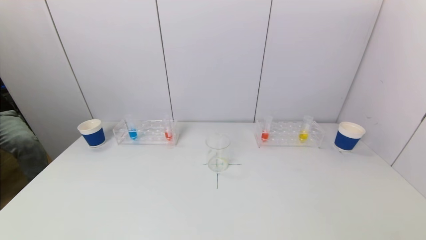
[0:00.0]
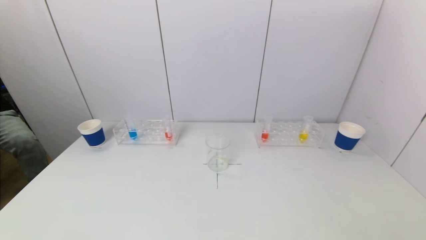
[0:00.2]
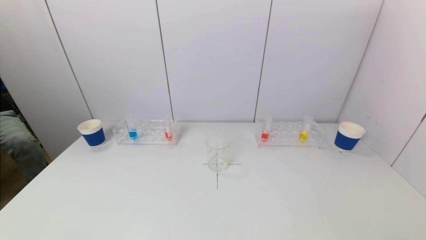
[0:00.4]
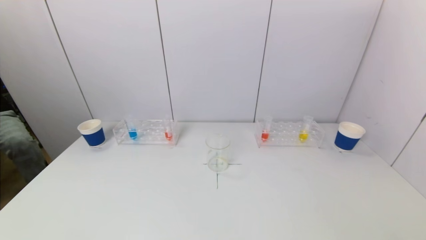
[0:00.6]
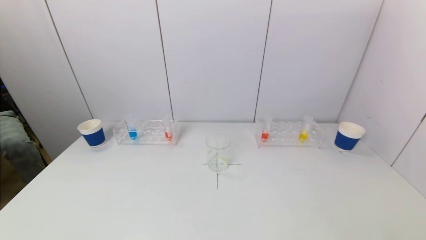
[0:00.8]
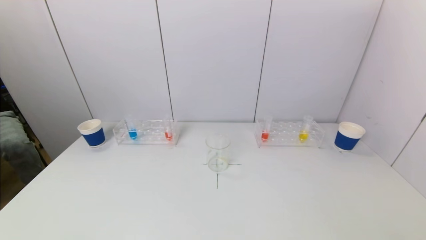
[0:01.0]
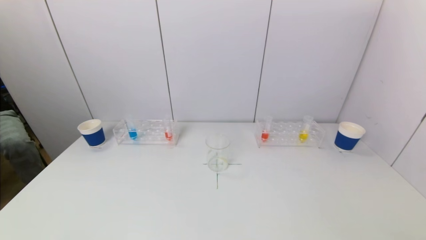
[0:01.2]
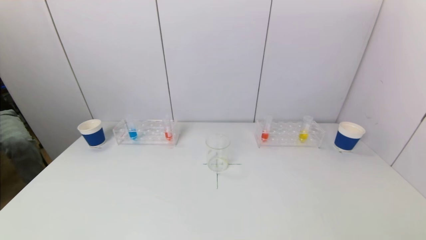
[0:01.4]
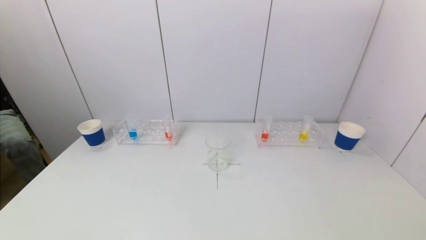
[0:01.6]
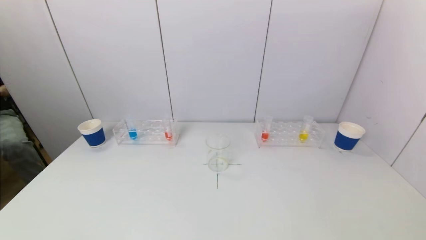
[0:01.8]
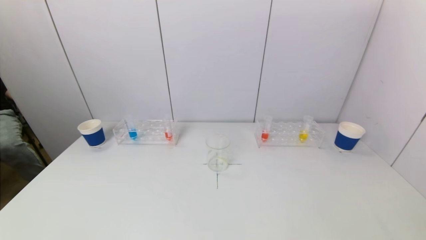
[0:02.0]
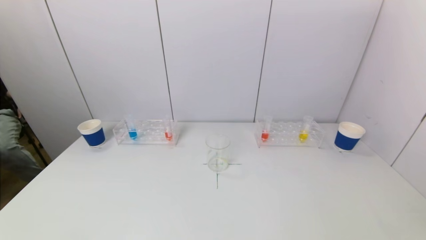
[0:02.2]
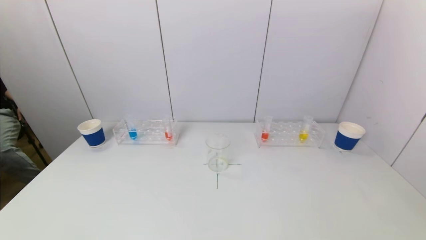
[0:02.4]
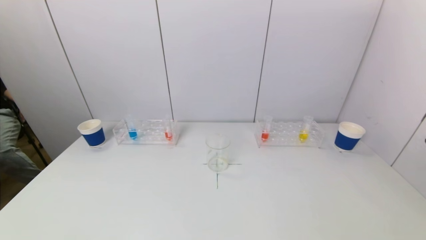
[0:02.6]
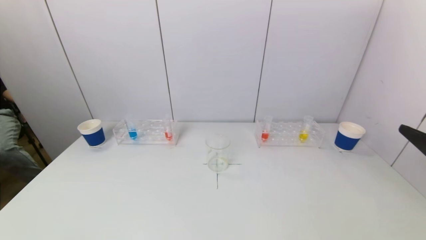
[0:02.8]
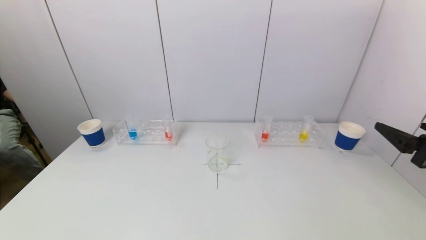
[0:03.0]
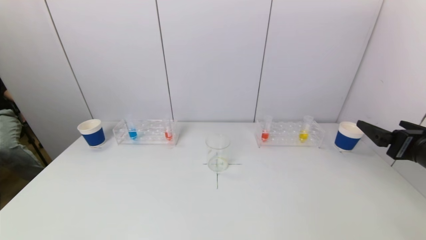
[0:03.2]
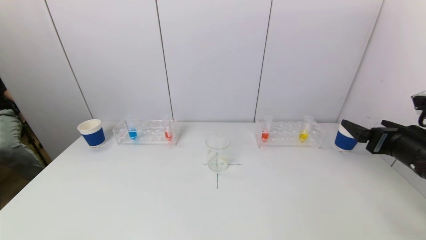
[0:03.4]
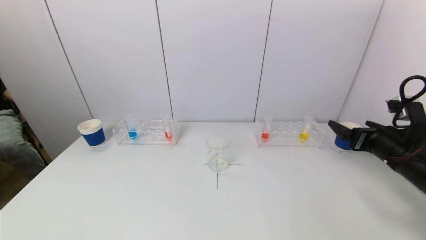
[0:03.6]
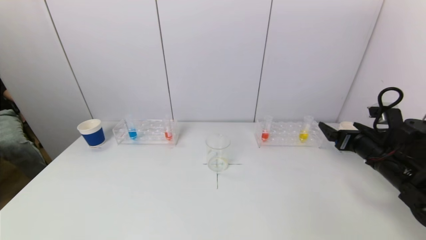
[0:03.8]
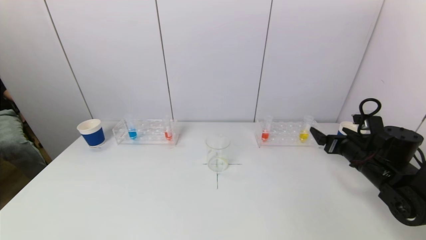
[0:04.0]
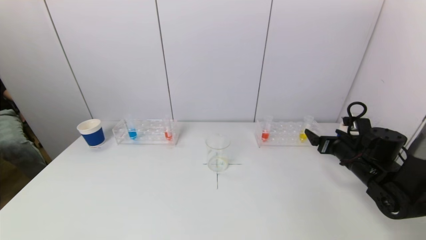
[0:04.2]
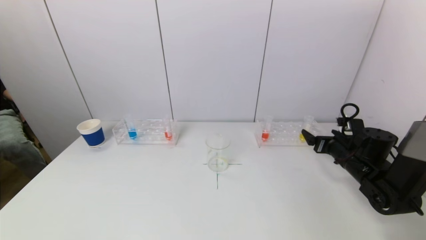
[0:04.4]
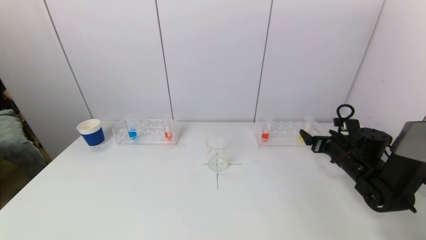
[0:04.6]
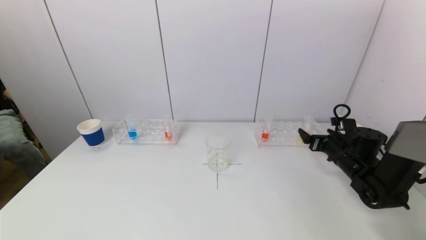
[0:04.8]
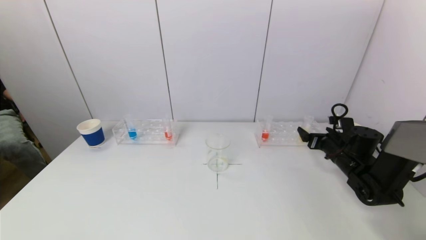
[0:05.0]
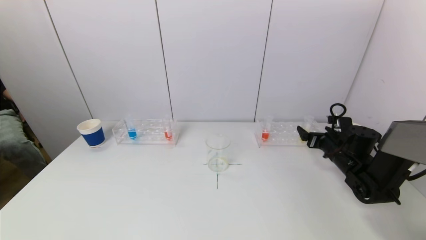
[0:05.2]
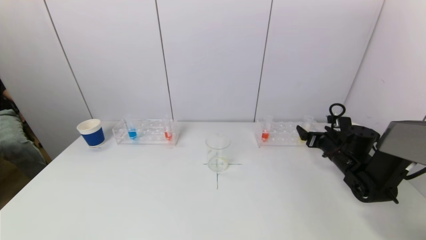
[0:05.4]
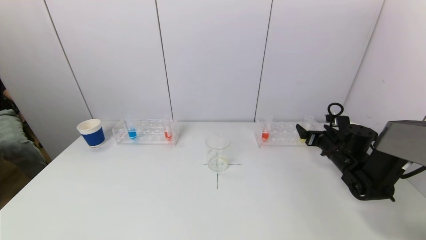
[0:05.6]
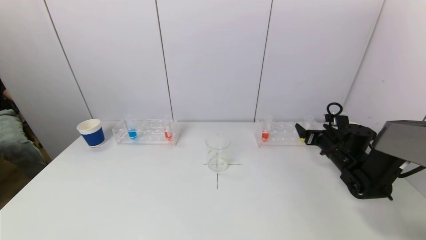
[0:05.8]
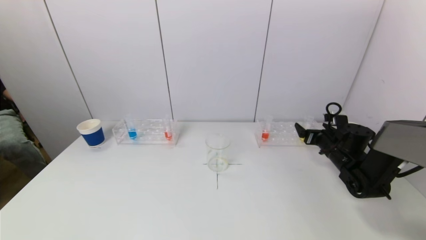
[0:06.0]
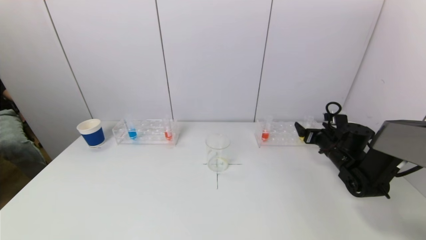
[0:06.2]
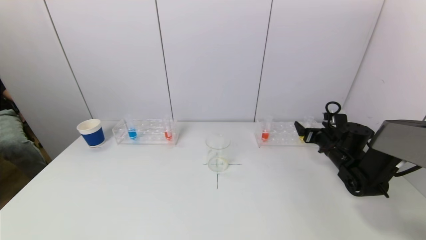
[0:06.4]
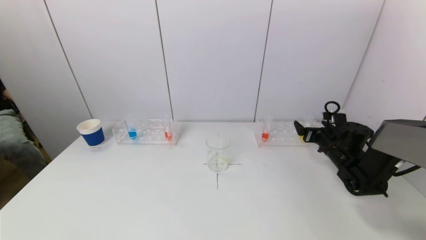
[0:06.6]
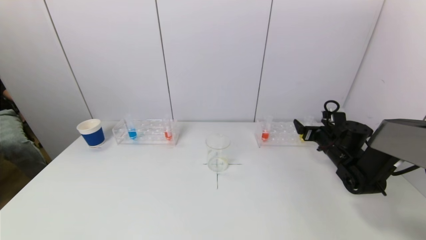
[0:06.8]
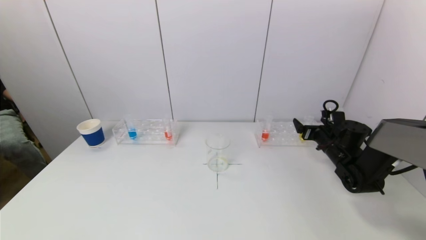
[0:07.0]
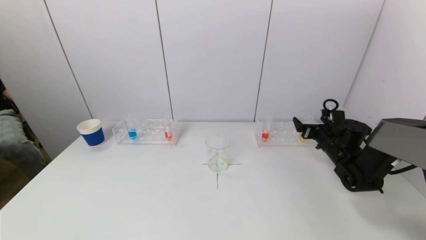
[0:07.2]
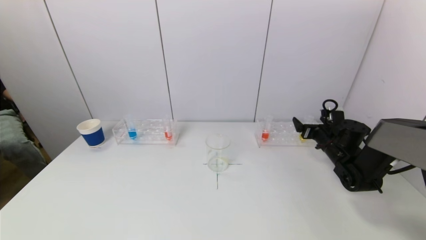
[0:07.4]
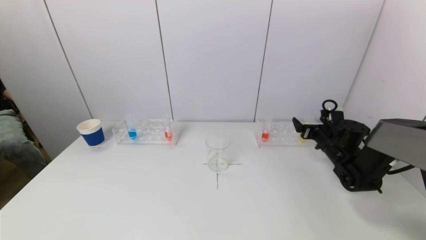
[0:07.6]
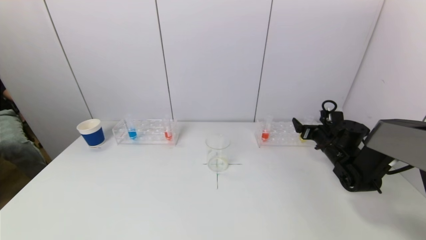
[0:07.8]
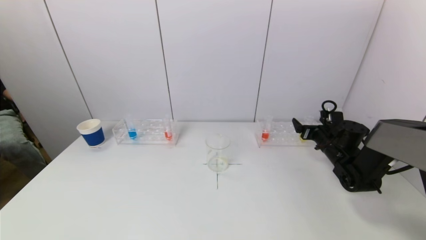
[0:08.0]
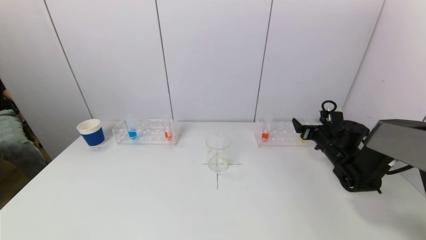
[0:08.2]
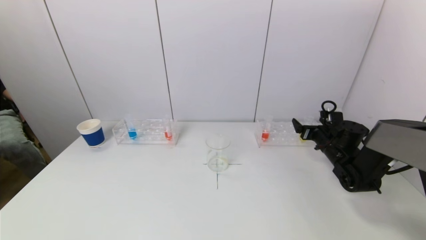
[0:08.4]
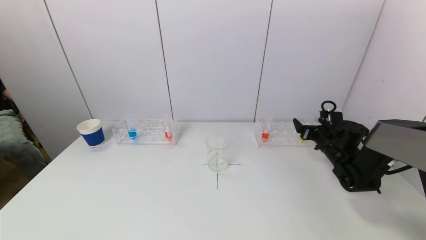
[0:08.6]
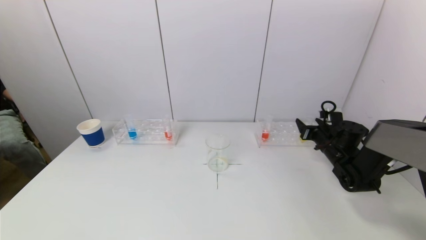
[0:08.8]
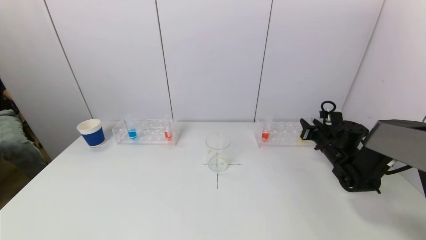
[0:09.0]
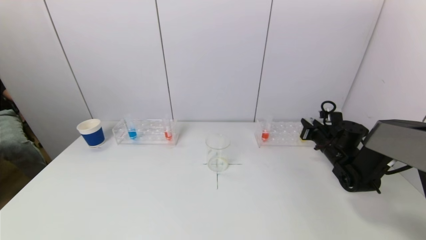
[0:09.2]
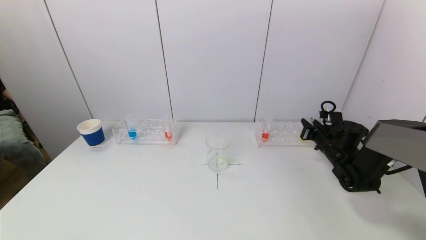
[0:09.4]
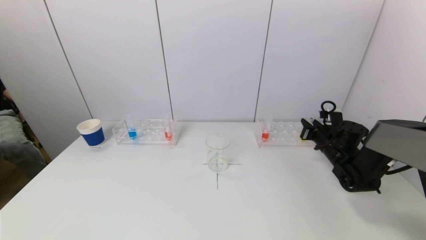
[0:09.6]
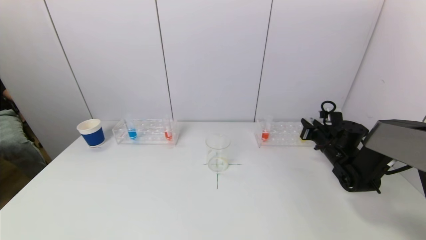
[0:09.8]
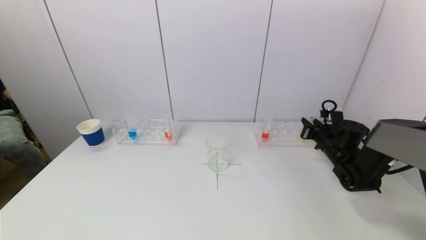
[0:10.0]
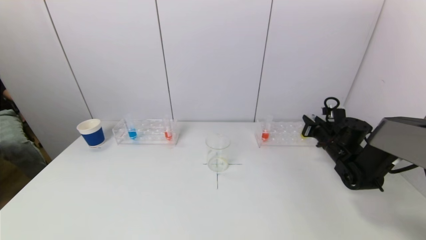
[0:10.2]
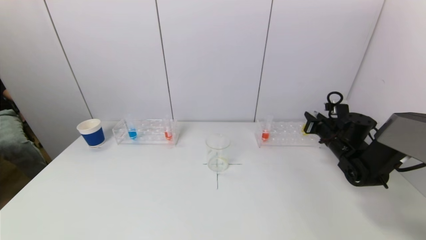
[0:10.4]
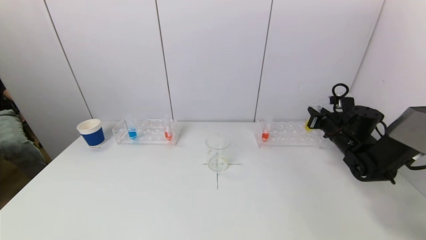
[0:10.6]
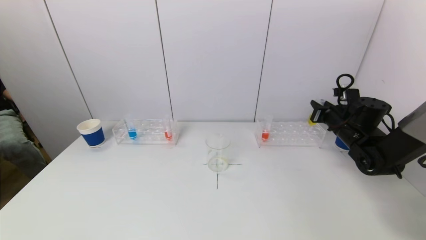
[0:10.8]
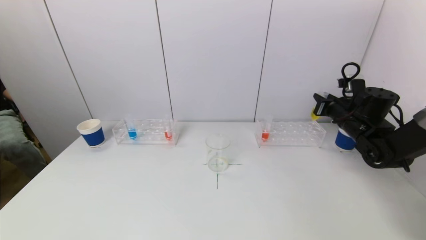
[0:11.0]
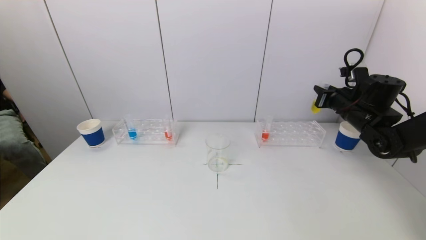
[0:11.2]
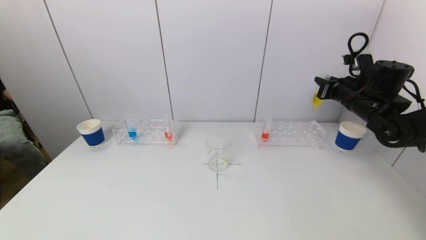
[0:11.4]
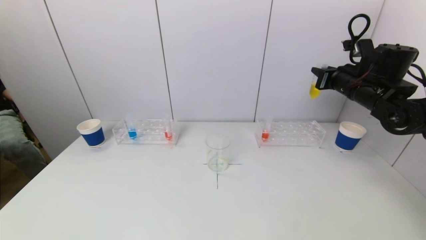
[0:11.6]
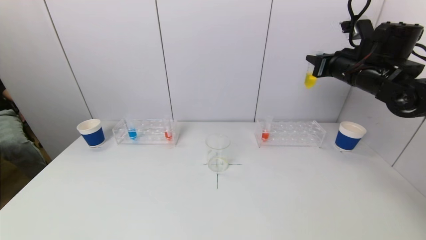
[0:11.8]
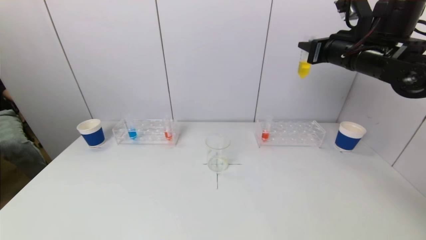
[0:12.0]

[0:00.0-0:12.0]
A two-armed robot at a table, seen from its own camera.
Task of the whole recording: pick up a test tube with pigment on left test tube rack and a test tube with pigment on right test tube rack by grippers and pour them into the beaker.
Step, 0:00.0 to 0:09.2: Grasp the yellow reagent with the right gripper.
0:01.6 to 0:03.0: The right gripper is displaced forward by approximately 20 cm.
0:03.0 to 0:04.4: The right gripper goes roughly 25 cm forward and downward.
0:04.4 to 0:06.0: The right gripper moves forward, about 5 cm.
0:06.0 to 0:07.6: The grippers move only a little.
0:07.6 to 0:09.0: The right gripper closes up.
0:09.0 to 0:10.4: The grippers move only a little.
0:10.4 to 0:12.0: The right gripper goes approximately 25 cm upward.

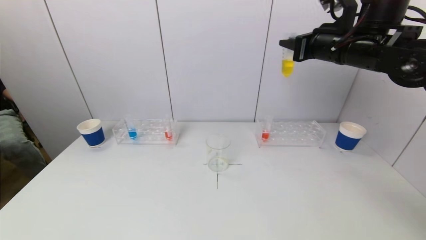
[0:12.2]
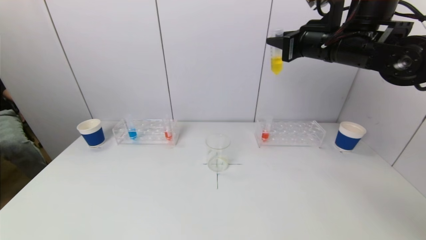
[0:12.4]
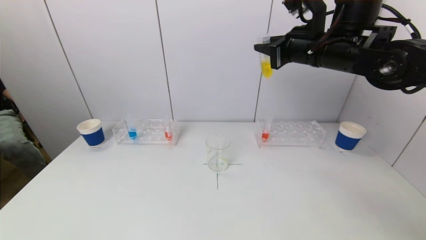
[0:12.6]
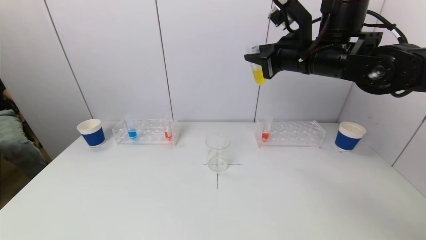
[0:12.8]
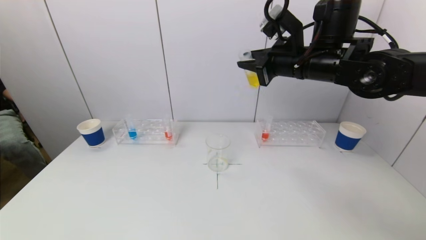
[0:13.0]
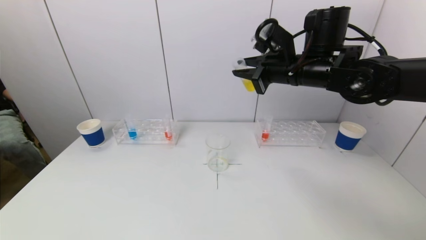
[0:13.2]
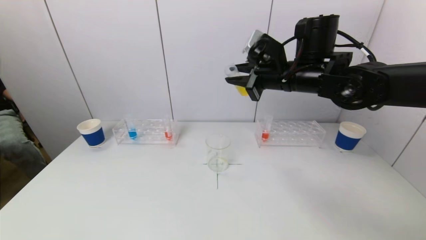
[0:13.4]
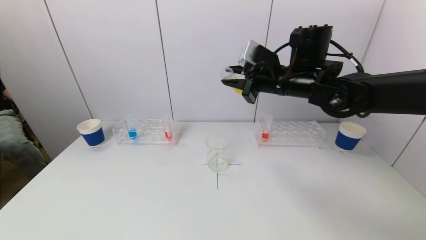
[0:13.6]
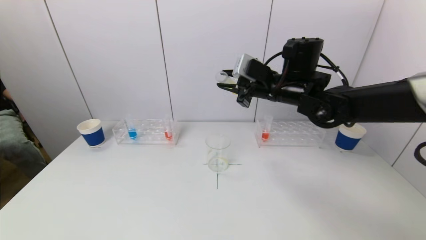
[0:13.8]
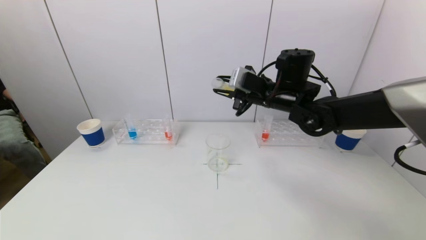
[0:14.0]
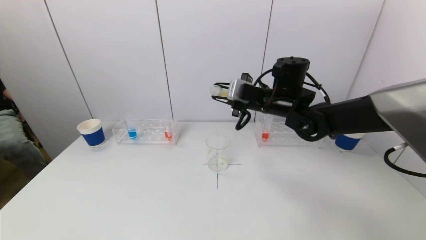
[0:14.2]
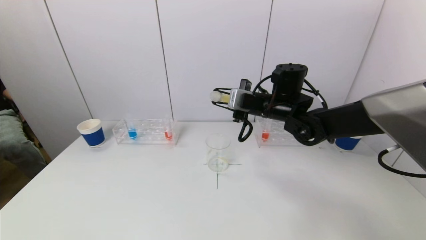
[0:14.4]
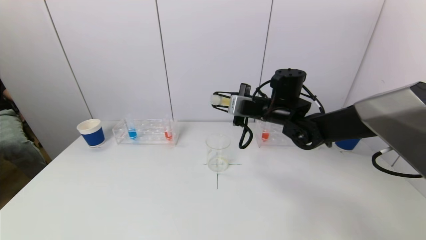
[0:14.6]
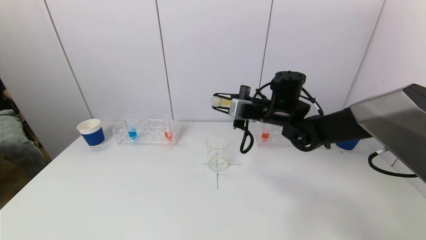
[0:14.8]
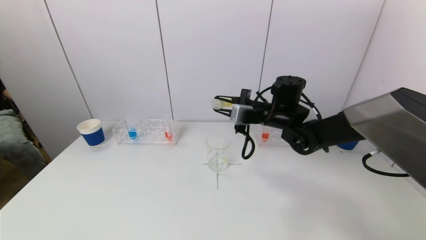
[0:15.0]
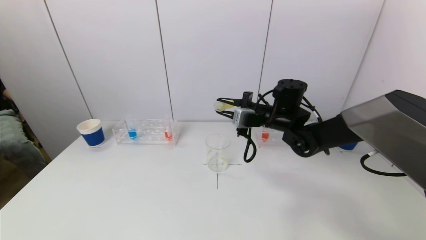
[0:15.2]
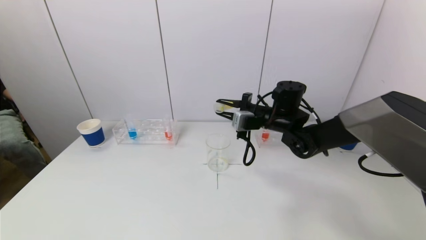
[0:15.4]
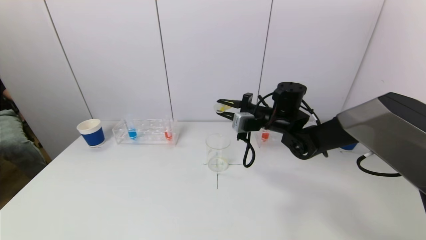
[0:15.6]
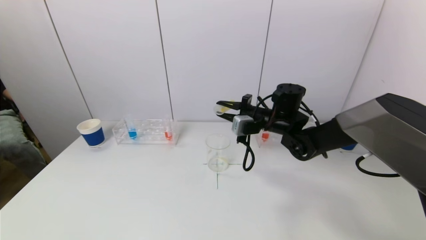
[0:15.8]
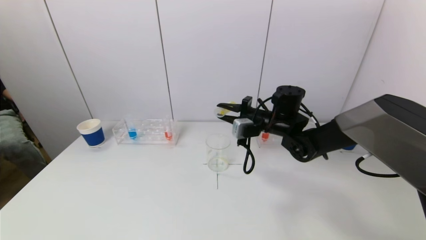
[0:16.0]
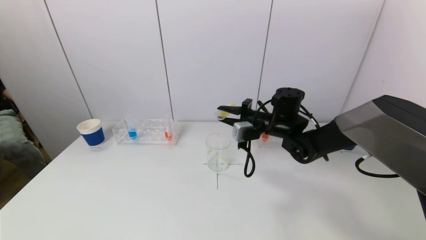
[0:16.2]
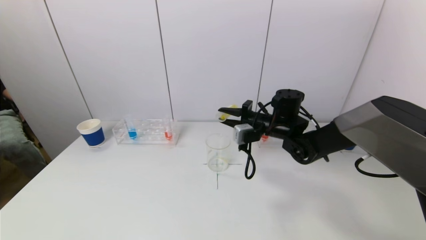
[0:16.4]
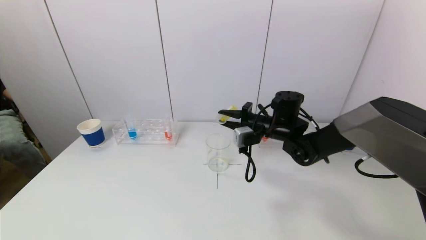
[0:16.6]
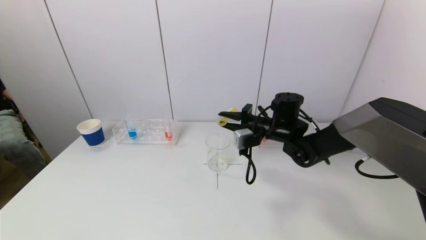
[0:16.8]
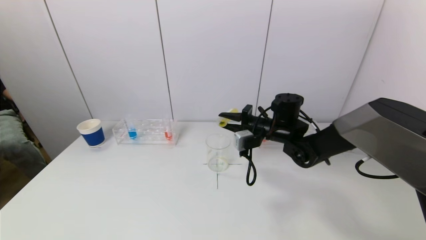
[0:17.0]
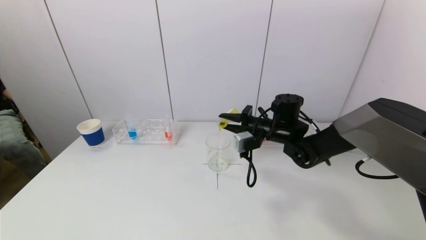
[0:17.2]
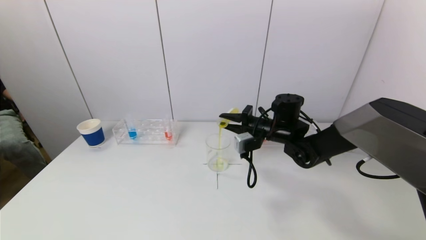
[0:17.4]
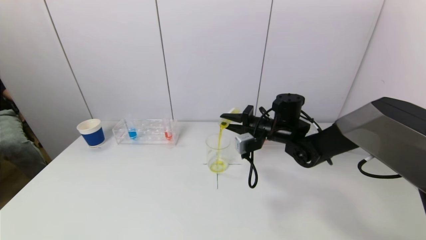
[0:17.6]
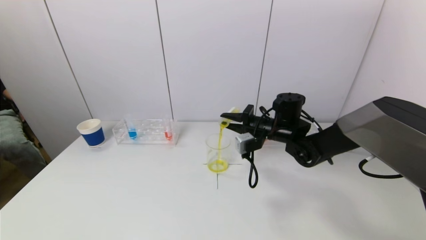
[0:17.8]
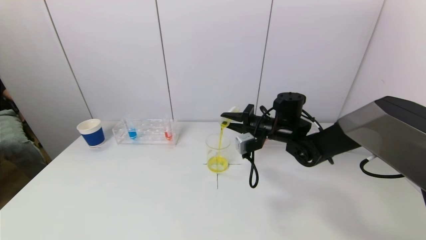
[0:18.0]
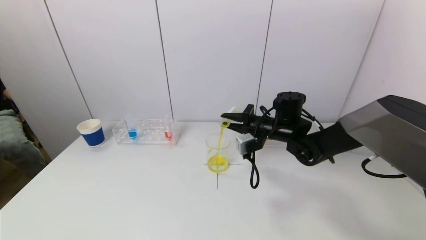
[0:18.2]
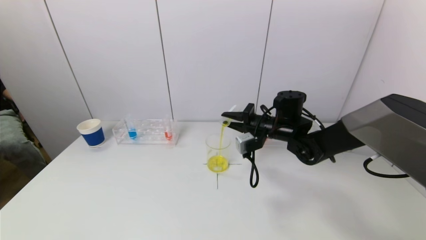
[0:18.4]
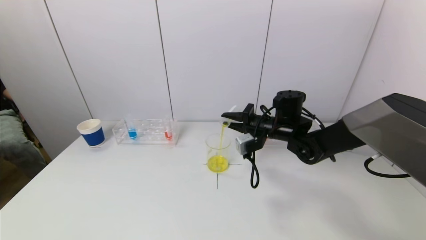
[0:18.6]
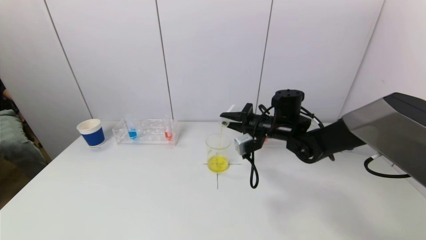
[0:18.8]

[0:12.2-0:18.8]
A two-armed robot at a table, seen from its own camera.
Task of the whole recording: pick up a test tube with pigment on left test tube rack and a test tube with pigment on right test tube rack by grippers and pour them into the beaker.
0:12.2 to 0:13.8: The right gripper shifts some 15 cm to the left and downward.
0:13.8 to 0:15.4: The right gripper is displaced downward by roughly 10 cm.
0:15.4 to 0:17.2: The grippers stay close to where they were, moving slightly.
0:17.2 to 0:18.8: The grippers move only a little.
